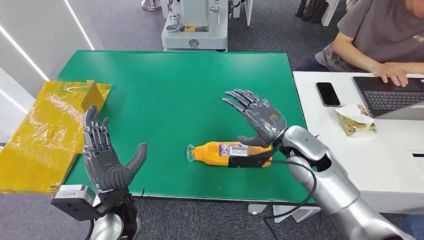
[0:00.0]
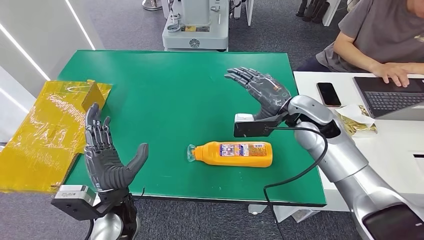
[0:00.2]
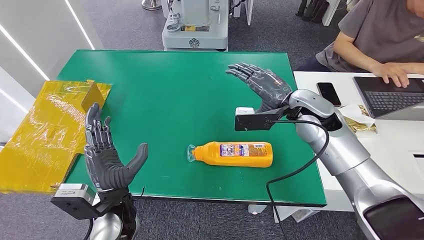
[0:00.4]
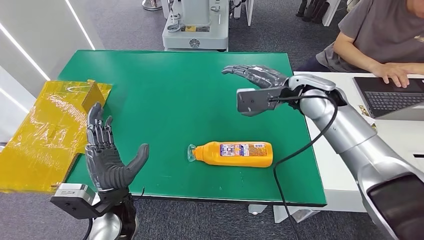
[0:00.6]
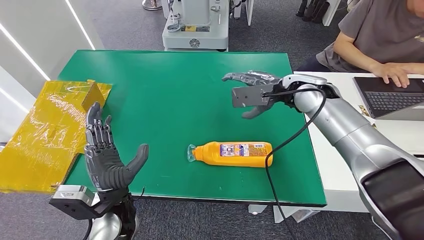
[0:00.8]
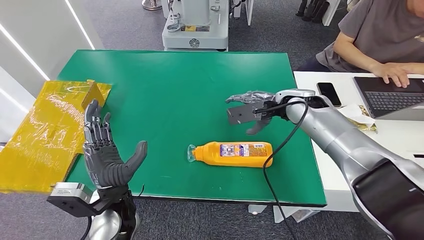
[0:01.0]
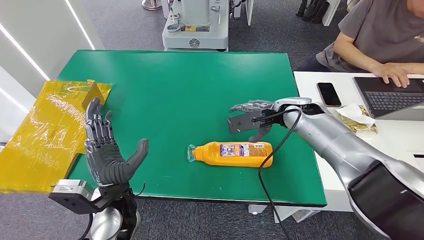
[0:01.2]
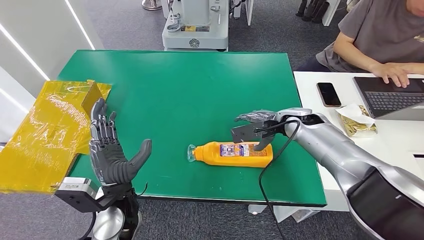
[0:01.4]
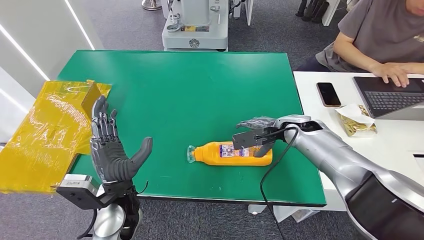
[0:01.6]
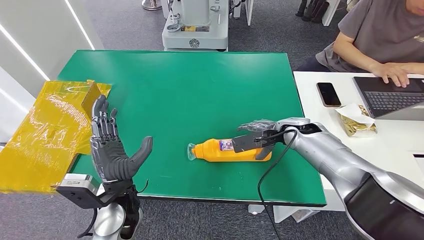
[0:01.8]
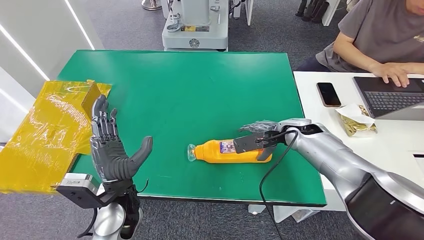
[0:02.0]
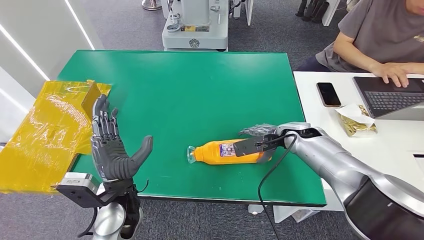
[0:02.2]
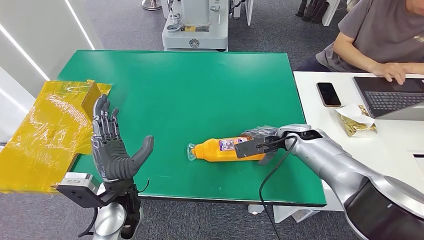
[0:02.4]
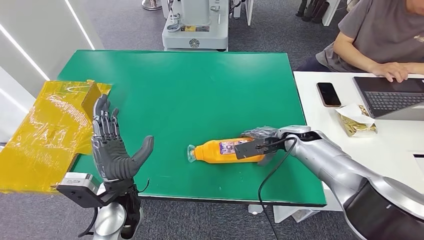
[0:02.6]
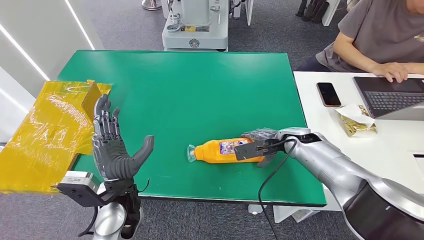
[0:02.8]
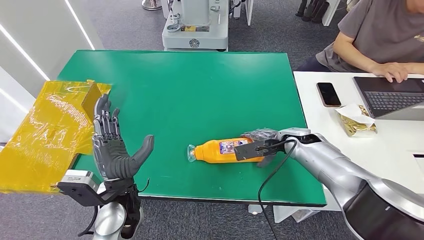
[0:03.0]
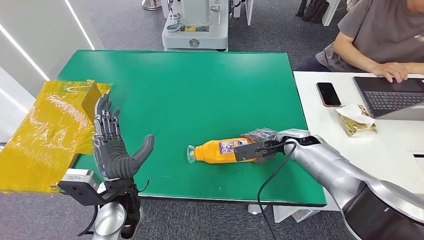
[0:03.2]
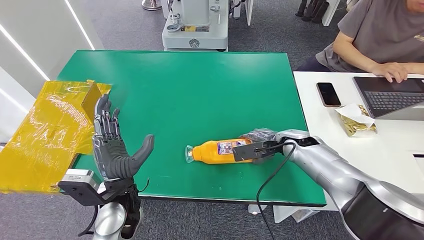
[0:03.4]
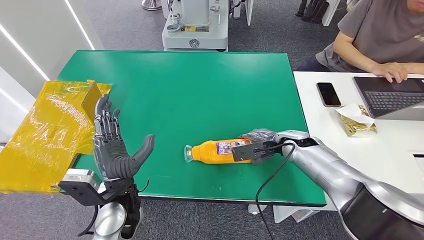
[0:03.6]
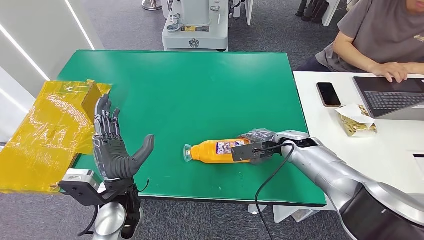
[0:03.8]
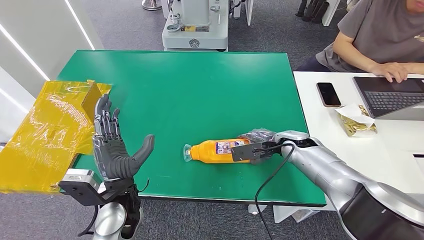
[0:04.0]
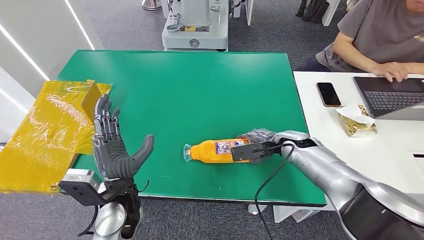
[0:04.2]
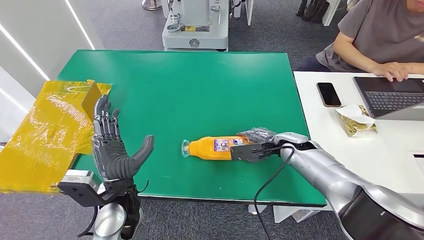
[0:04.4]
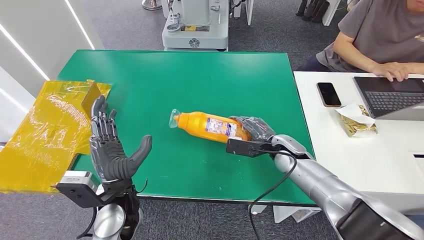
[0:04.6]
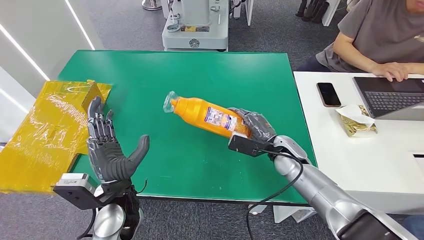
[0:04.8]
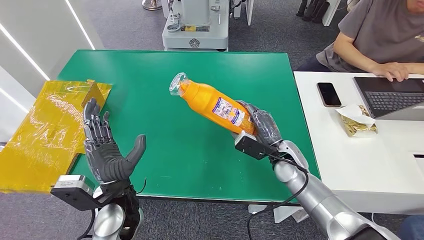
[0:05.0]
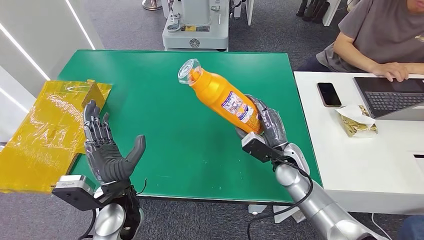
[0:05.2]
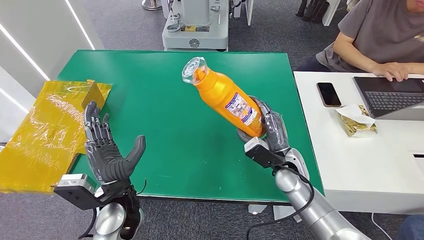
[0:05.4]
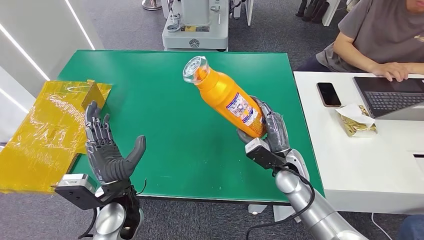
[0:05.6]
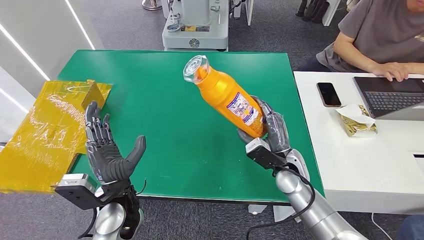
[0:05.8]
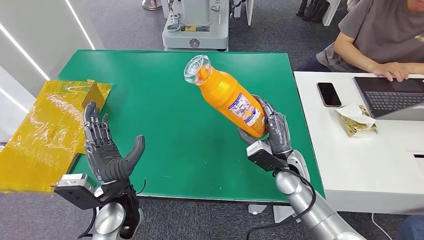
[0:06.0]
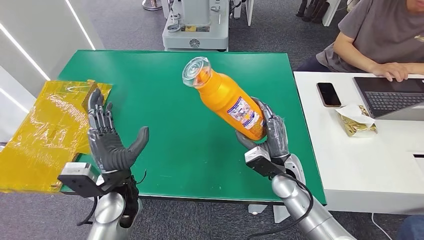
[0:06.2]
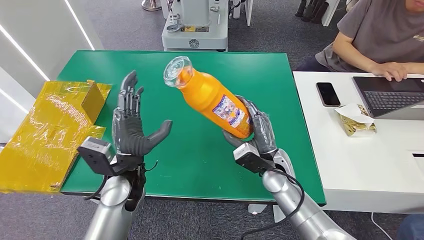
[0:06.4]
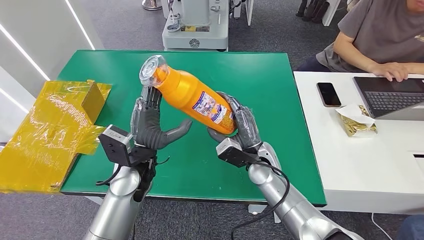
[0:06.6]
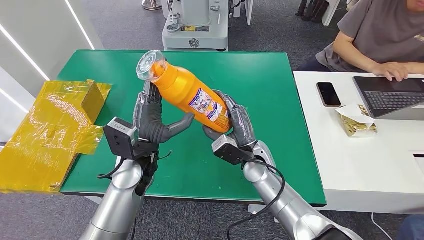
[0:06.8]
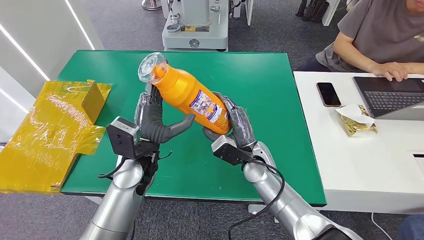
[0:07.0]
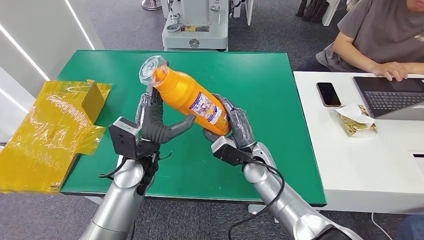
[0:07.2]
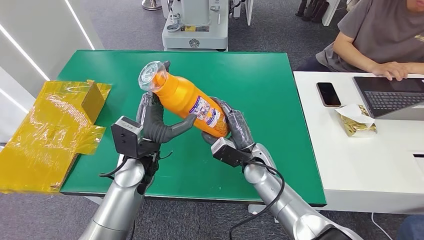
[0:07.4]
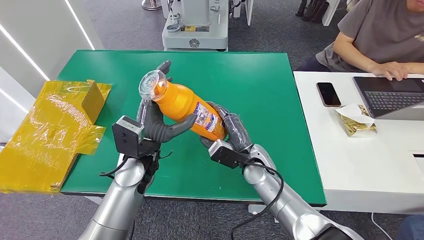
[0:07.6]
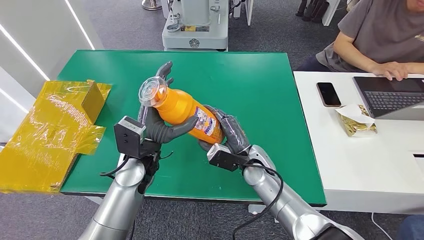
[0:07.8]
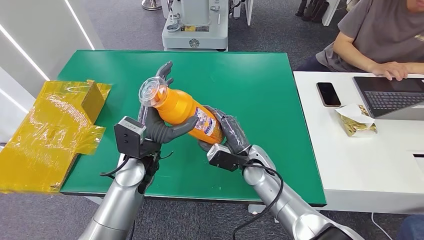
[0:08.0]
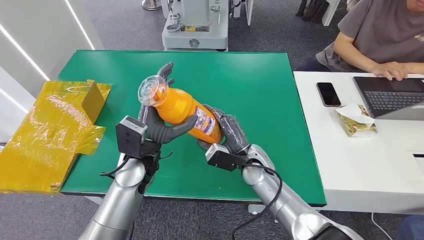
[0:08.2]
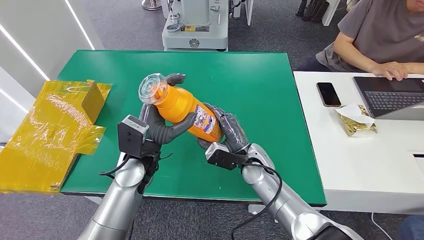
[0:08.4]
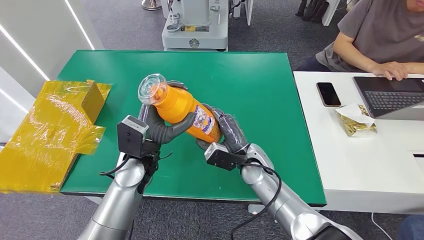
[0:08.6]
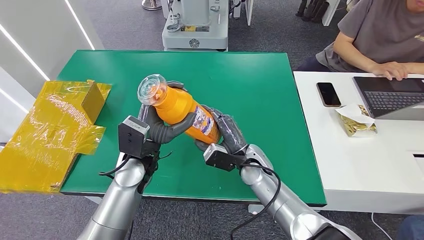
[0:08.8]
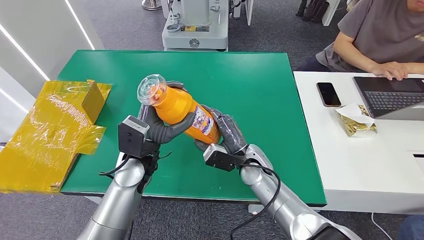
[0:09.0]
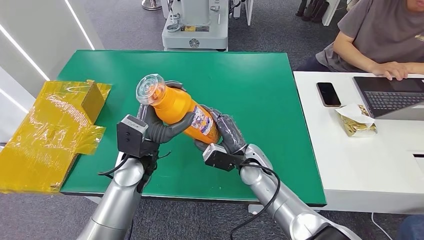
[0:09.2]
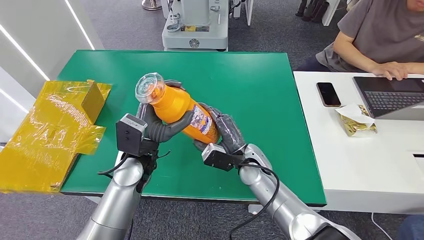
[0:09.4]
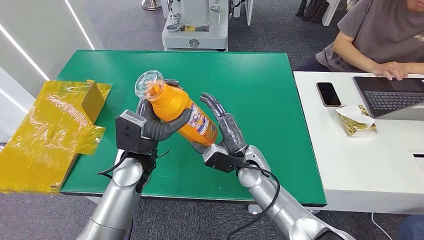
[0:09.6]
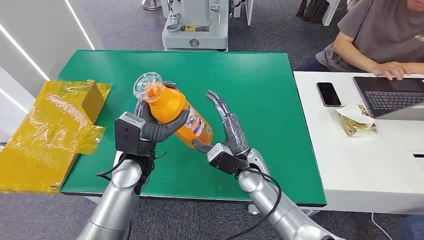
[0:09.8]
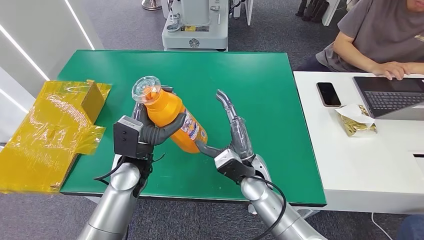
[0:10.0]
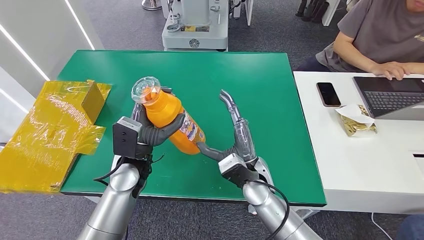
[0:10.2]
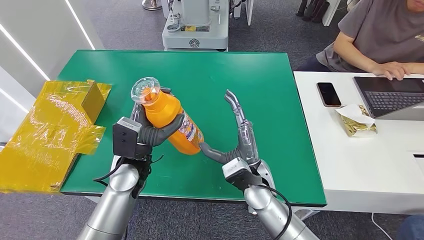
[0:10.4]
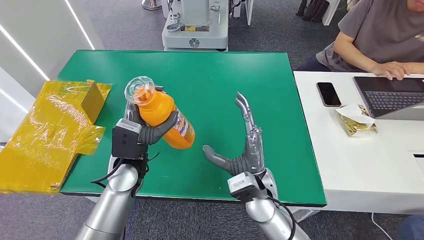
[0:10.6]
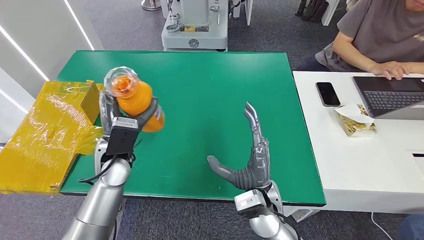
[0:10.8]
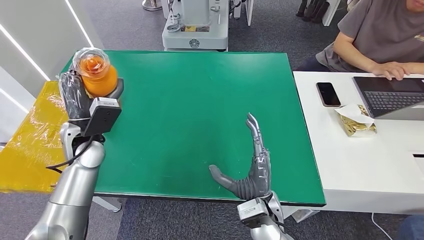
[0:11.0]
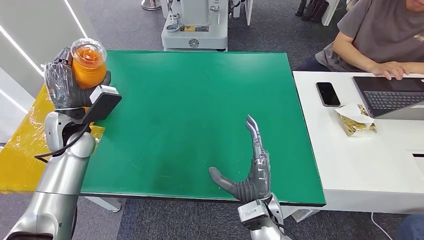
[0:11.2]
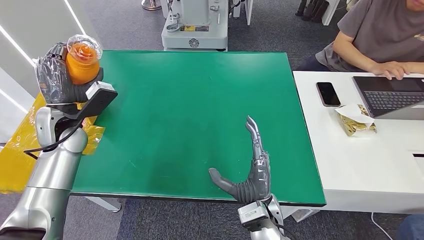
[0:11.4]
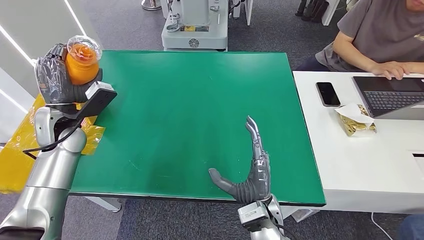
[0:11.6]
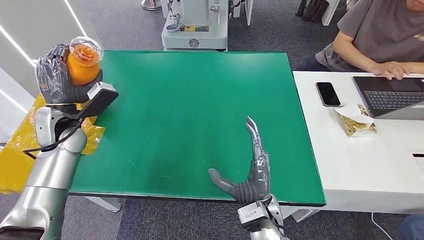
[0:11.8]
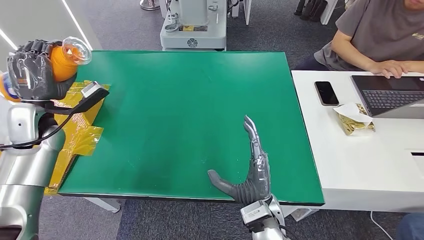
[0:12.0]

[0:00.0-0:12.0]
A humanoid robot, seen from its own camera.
Step, 0.0 to 5.4 s: Pick up the bottle from the table.
1.6 to 4.4 s: The hands stay close to where they were, moving slightly.
4.4 to 6.0 s: The right hand moves backward, about 10 cm.
7.6 to 9.0 s: There are only small adjustments of the hands.
9.0 to 10.4 s: The right hand shifts some 5 cm backward.

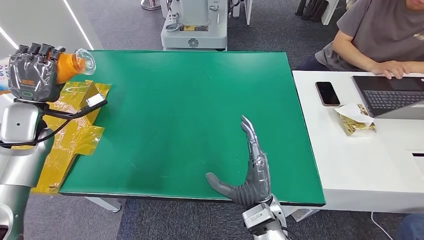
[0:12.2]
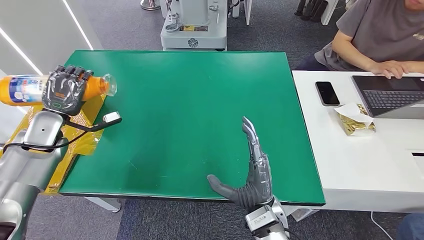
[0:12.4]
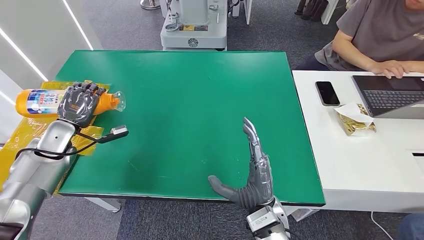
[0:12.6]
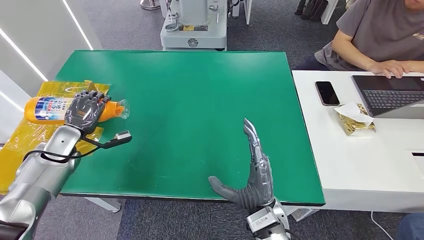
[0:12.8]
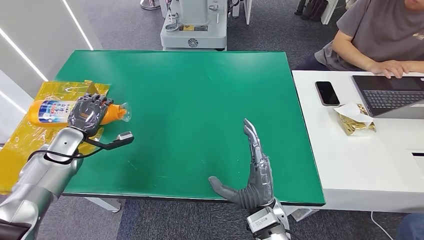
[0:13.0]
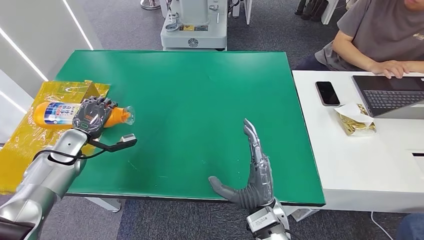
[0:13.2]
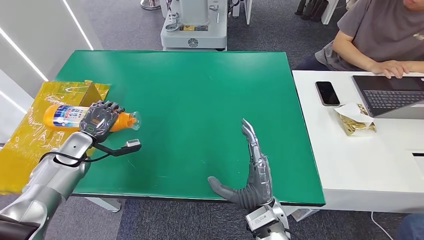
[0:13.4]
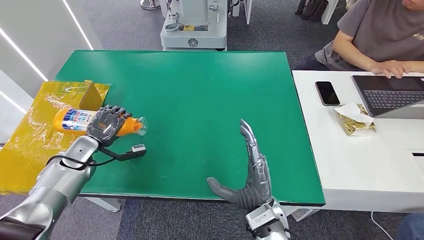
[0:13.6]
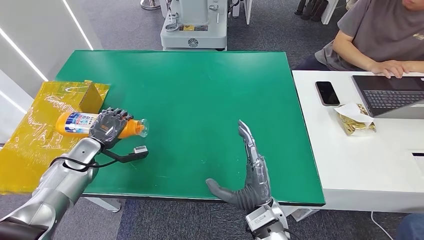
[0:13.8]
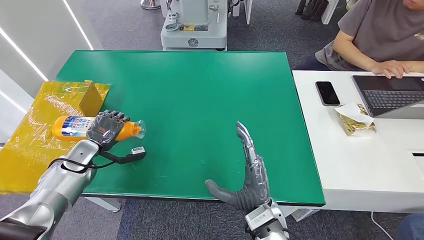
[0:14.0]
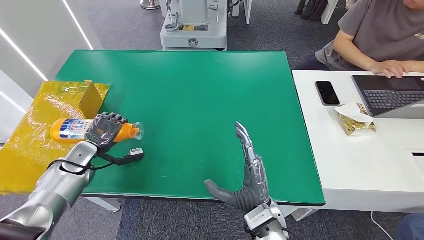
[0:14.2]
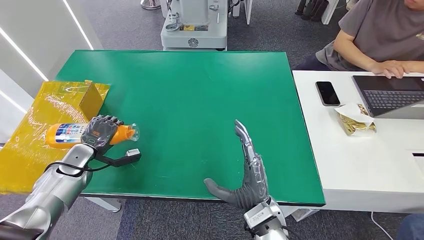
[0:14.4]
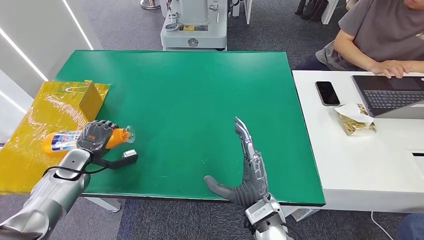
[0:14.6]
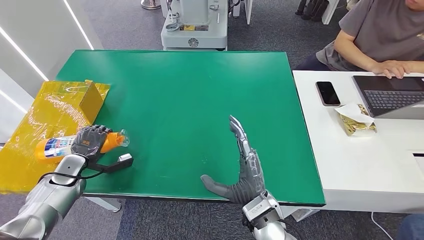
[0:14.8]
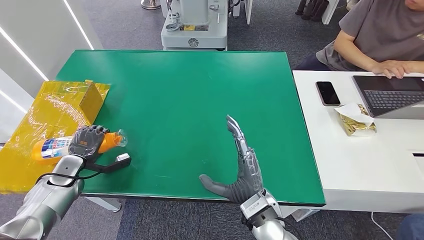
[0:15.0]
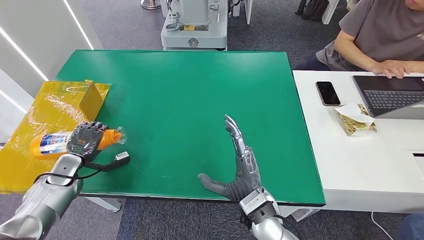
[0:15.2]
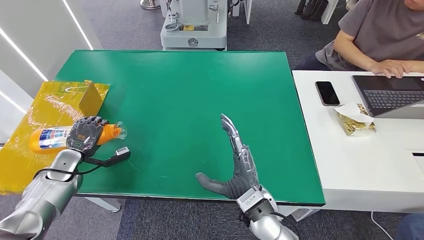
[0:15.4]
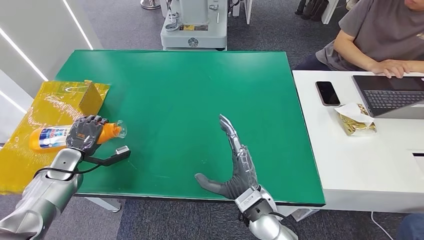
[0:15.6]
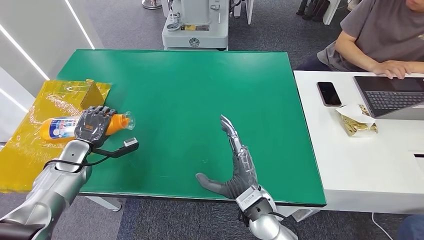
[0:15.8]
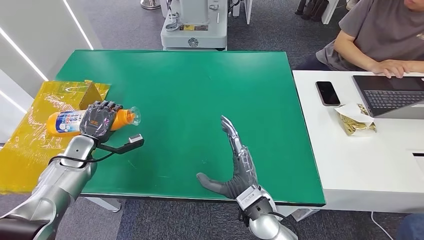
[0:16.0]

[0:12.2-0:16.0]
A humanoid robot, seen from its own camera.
Step, 12.2 to 16.0 s: Turn the bottle to the front side.
12.2 to 13.4 s: The left hand goes roughly 15 cm downward.
13.4 to 14.8 s: The left hand is displaced downward and backward by roughly 10 cm.
14.8 to 16.0 s: The left hand changes place by about 5 cm.

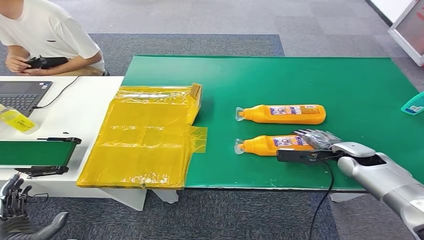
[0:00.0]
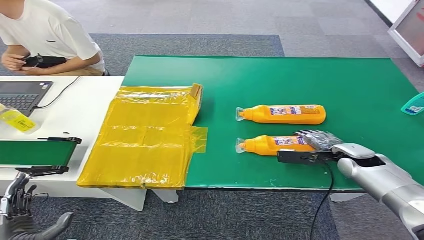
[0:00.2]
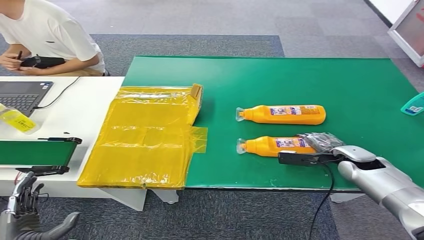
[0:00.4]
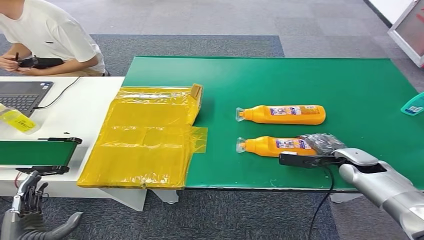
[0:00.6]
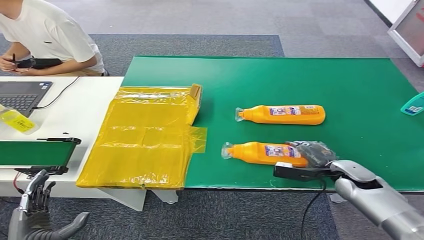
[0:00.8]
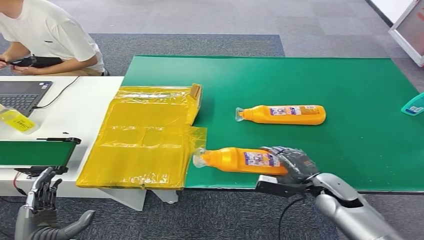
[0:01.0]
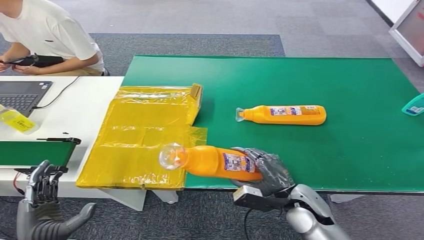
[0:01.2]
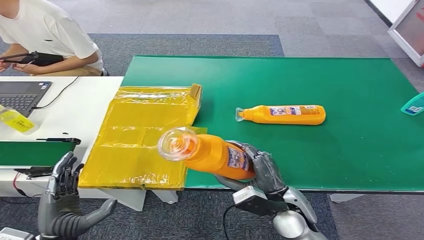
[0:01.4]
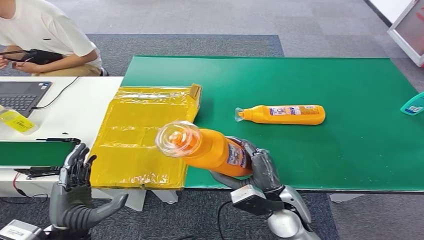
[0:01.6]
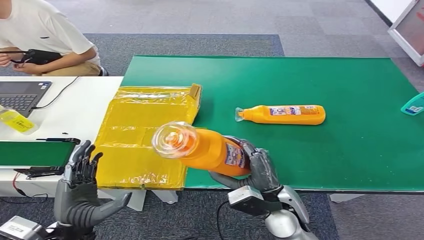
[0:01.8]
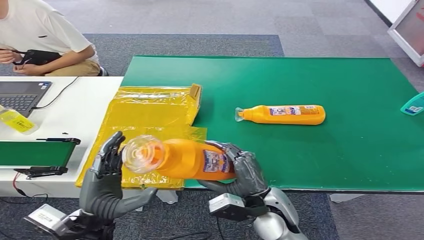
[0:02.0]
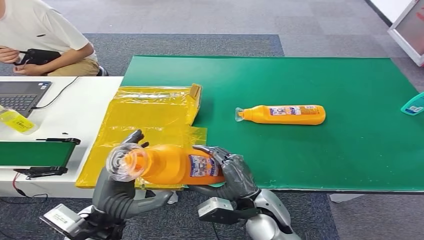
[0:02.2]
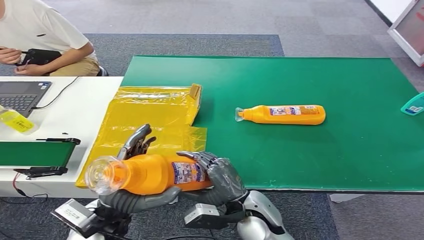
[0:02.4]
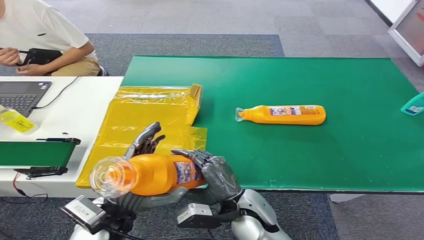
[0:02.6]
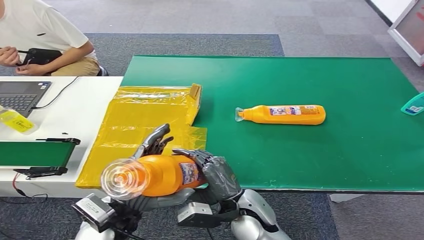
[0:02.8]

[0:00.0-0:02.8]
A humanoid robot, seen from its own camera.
0.0 to 1.4 s: The left hand goes approximately 10 cm to the right; the right hand heads to the left and backward, covering about 20 cm.
1.4 to 2.8 s: The right hand heads to the left, covering approximately 10 cm. Meanwhile the left hand travels to the right, forward and upward by approximately 15 cm.
